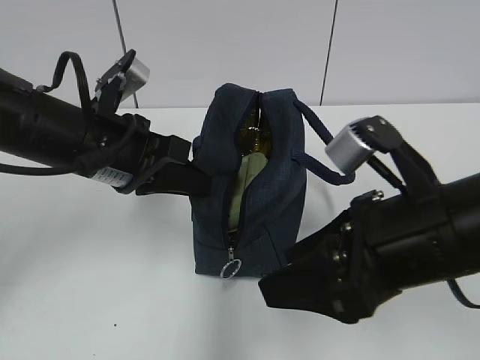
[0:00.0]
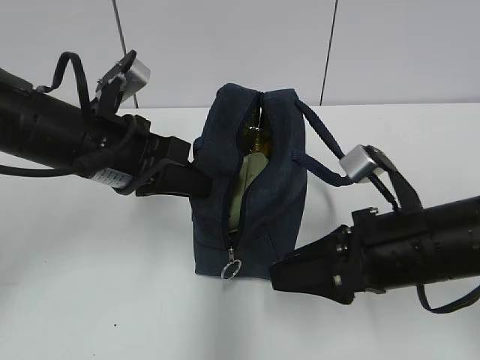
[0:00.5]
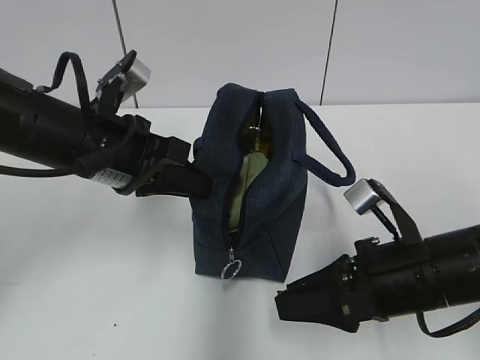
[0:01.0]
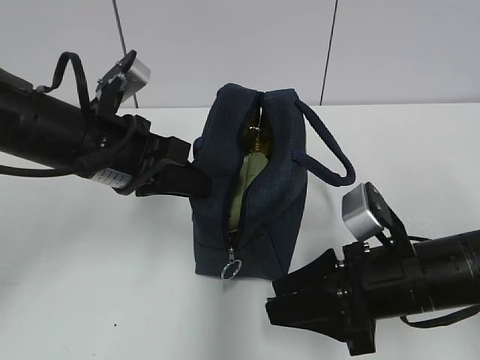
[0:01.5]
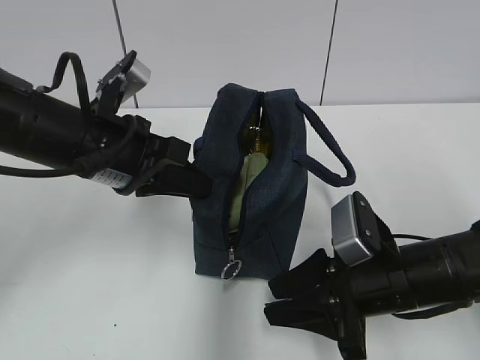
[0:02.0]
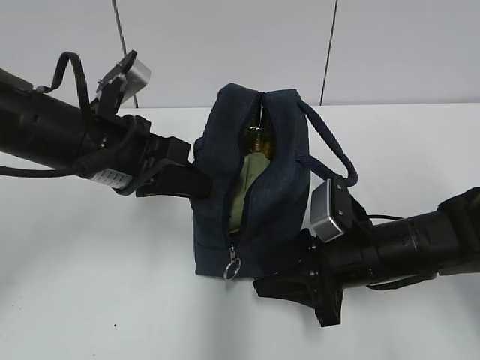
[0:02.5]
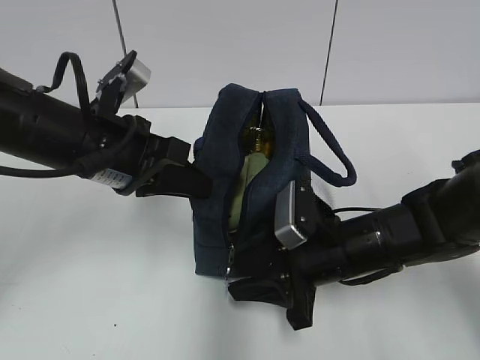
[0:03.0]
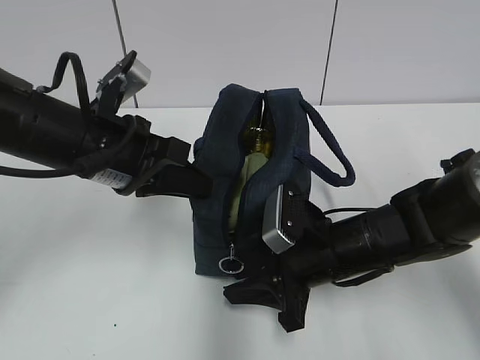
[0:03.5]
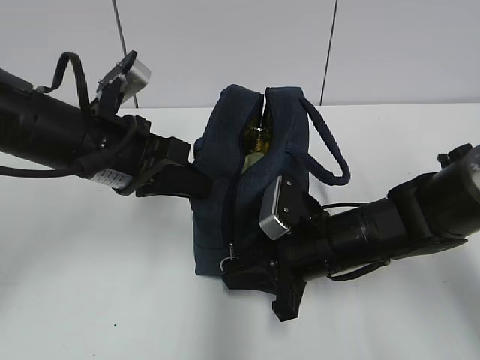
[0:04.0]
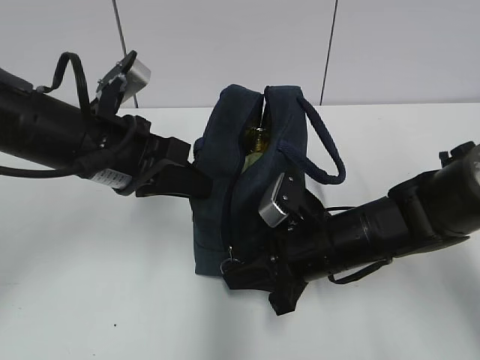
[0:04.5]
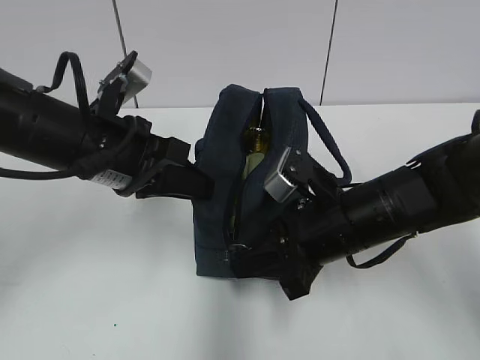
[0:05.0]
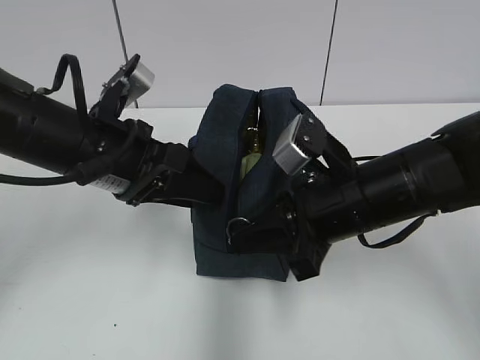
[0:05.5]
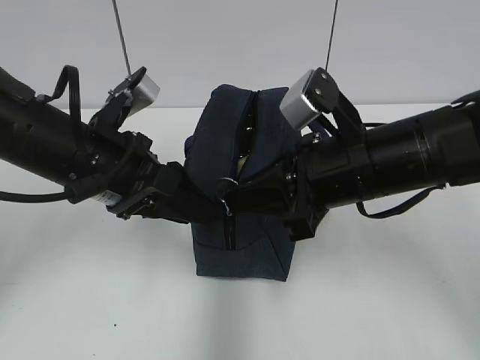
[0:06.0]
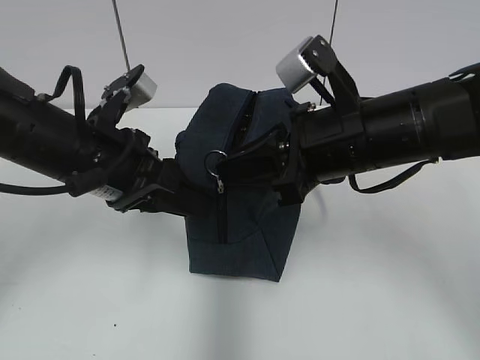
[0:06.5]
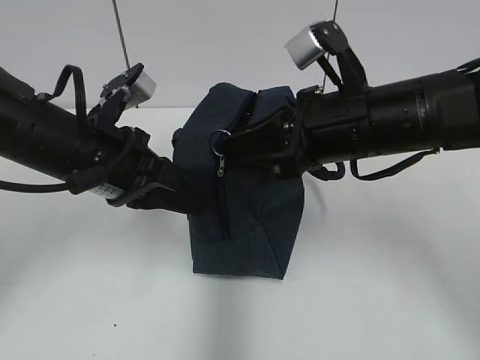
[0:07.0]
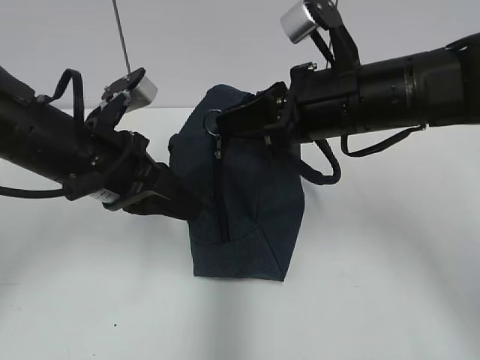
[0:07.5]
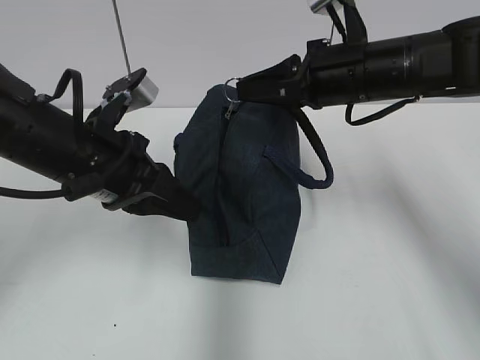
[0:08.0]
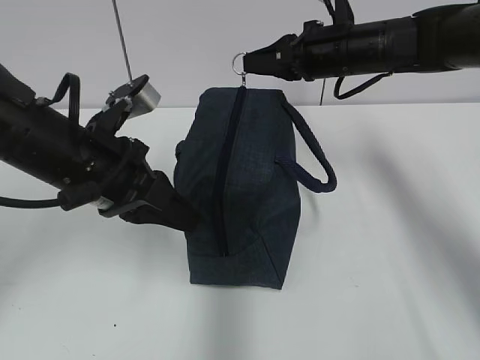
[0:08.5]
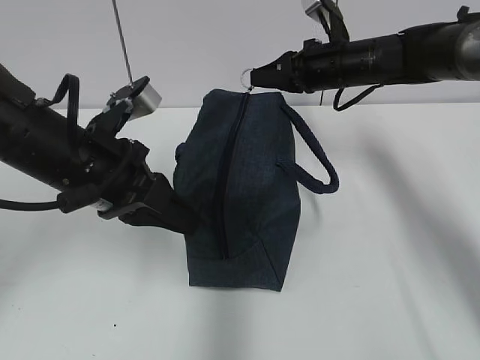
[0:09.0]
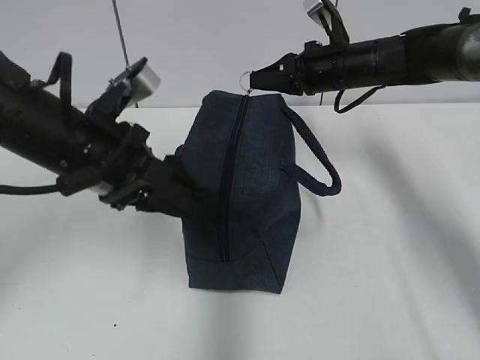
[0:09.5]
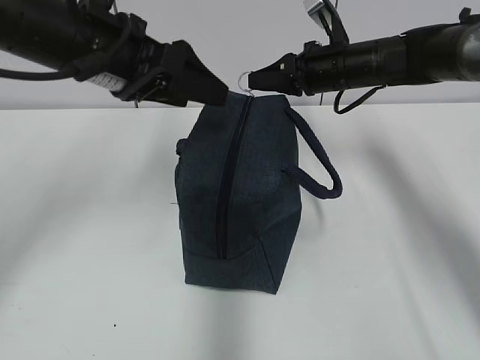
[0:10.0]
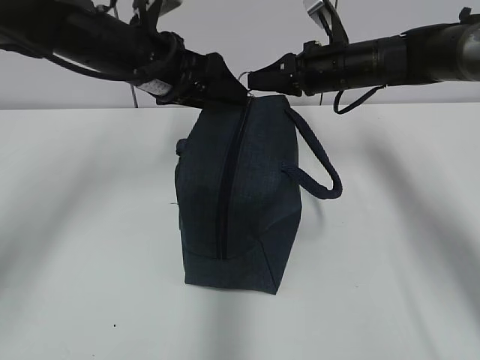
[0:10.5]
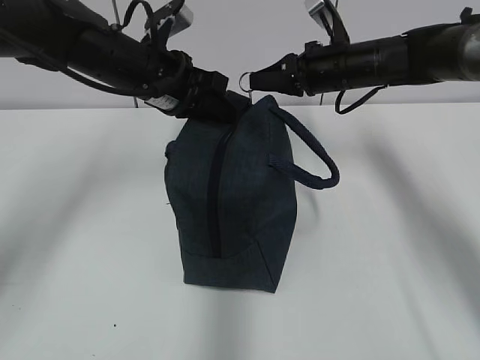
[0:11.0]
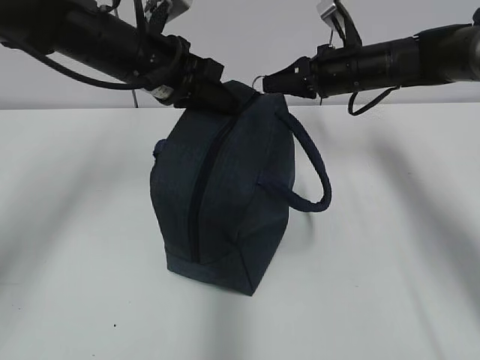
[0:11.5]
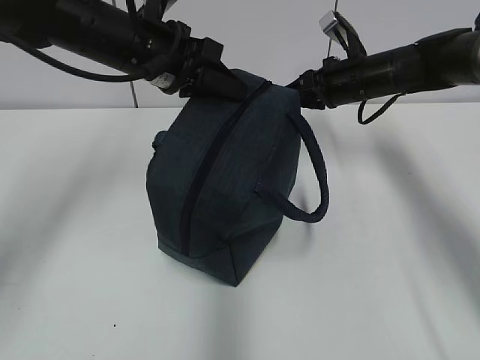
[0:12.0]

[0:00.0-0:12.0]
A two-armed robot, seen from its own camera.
0:00.0 to 0:02.0: The right gripper is displaced downward by about 10 cm.
0:02.0 to 0:04.0: The right gripper travels forward and to the left by approximately 5 cm.
0:04.0 to 0:06.0: The left gripper opens; the right gripper moves upward, about 10 cm.
0:06.0 to 0:08.0: The right gripper heads forward, covering roughly 10 cm; the left gripper closes up.
0:08.0 to 0:10.0: The right gripper travels forward by roughly 10 cm; the left gripper heads upward and forward, covering roughly 10 cm, and opens.
0:10.0 to 0:12.0: The left gripper shifts approximately 5 cm forward, and closes.

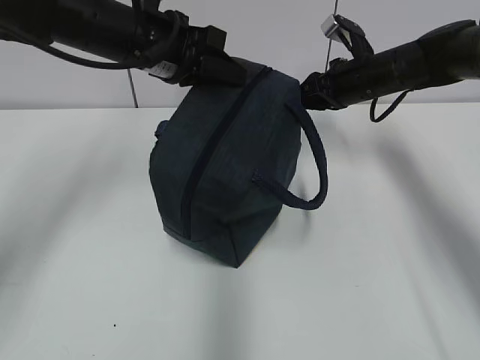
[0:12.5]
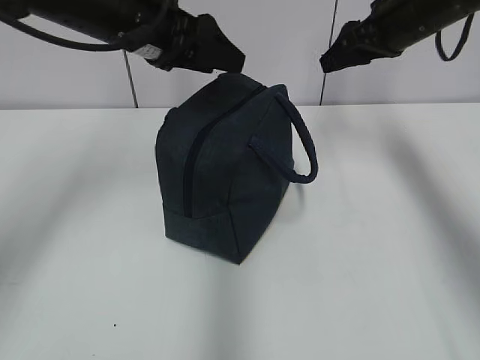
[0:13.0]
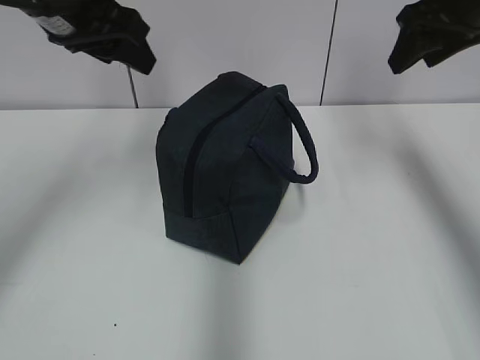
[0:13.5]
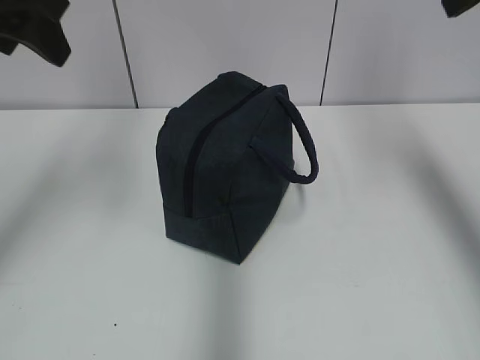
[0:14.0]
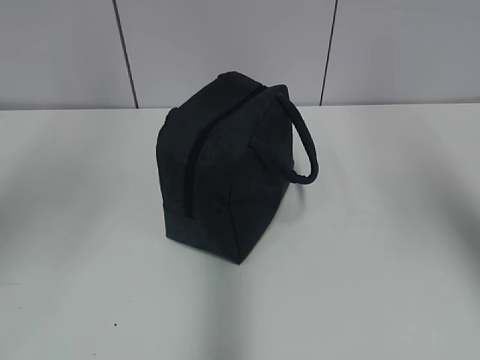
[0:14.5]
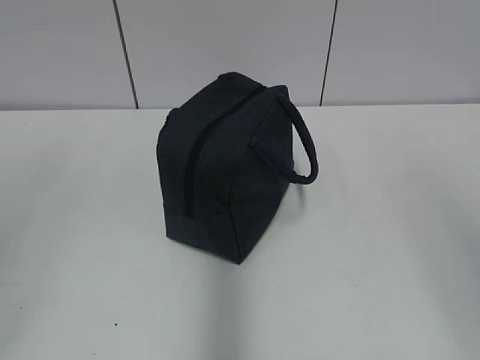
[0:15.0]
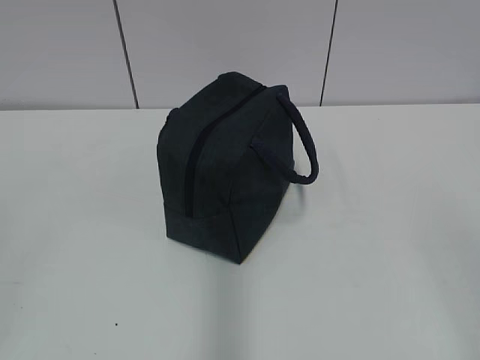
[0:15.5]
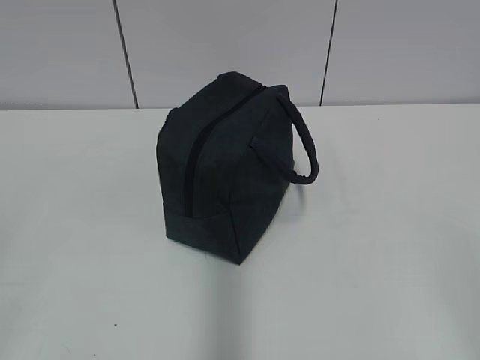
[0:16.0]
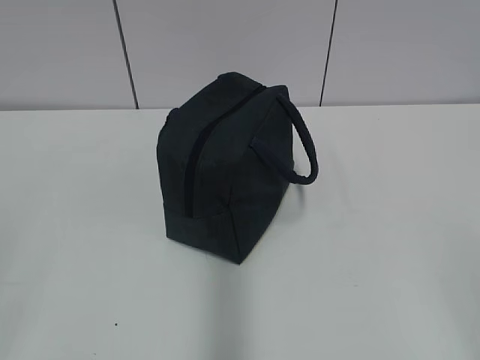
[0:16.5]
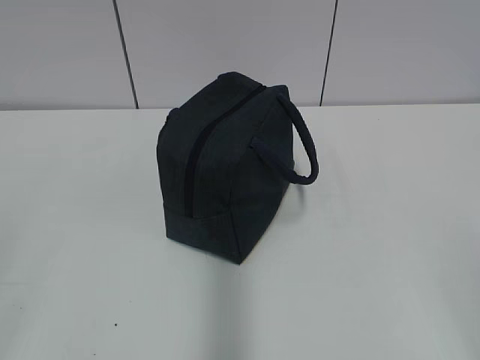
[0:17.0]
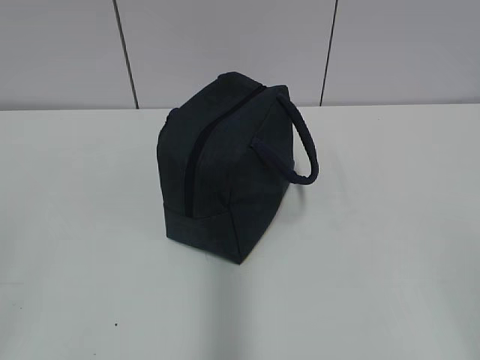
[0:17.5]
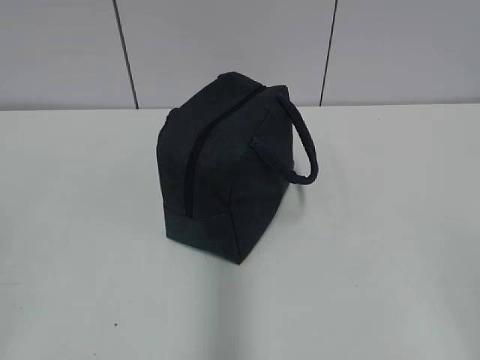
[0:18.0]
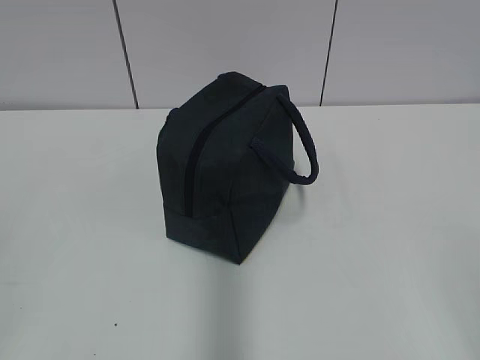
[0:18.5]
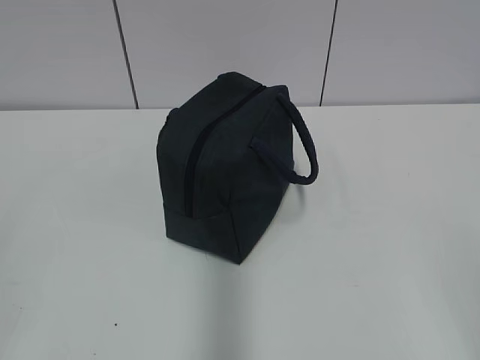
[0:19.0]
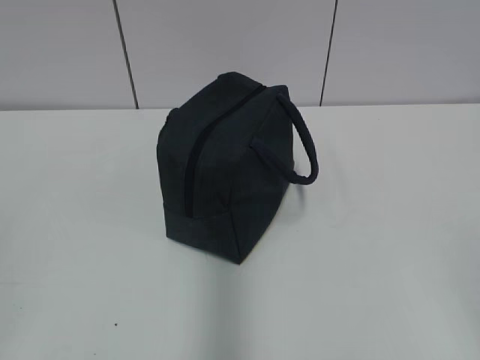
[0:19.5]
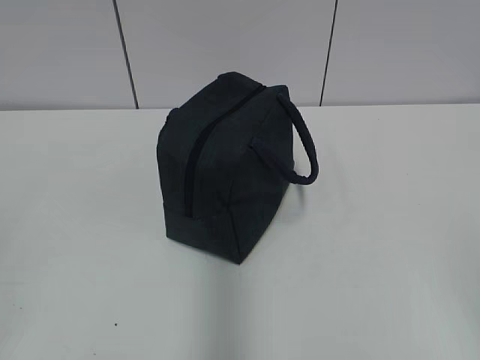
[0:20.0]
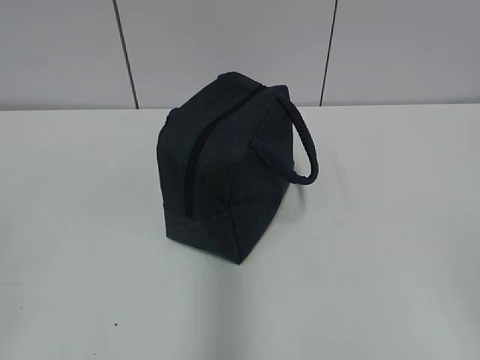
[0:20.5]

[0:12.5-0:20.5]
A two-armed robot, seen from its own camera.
0:12.5 to 0:14.5: The left gripper heads backward, upward and to the left, covering approximately 30 cm, and opens; the right gripper travels backward and upward by roughly 40 cm.
0:14.5 to 0:16.5: Both grippers travel together backward and downward, approximately 25 cm.
